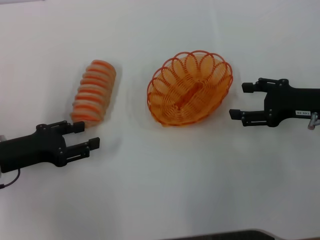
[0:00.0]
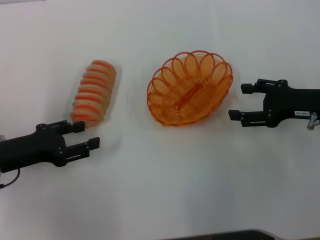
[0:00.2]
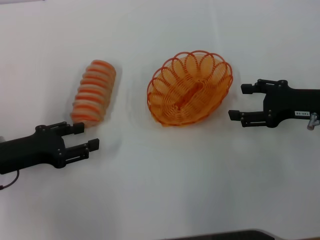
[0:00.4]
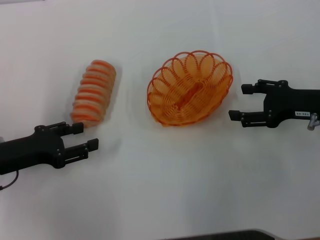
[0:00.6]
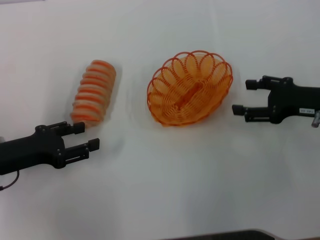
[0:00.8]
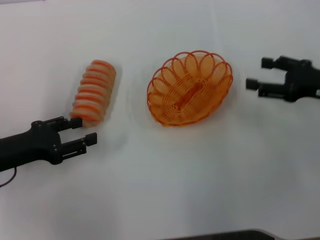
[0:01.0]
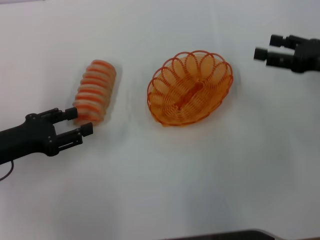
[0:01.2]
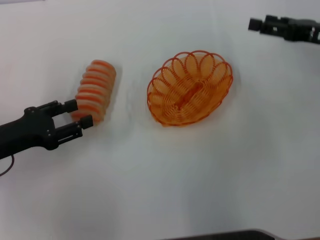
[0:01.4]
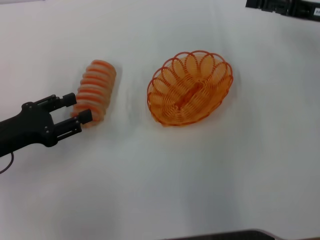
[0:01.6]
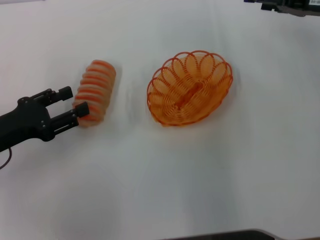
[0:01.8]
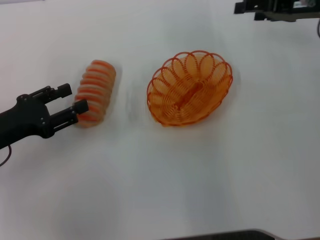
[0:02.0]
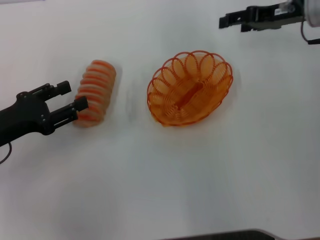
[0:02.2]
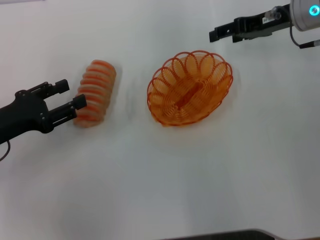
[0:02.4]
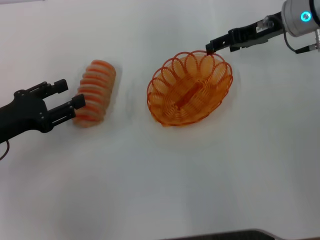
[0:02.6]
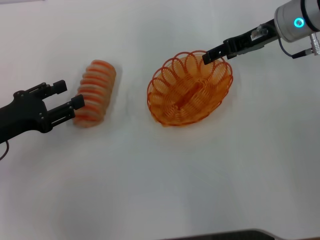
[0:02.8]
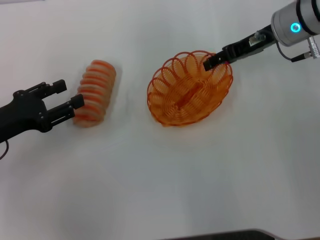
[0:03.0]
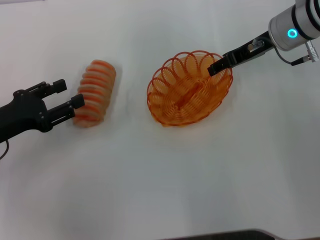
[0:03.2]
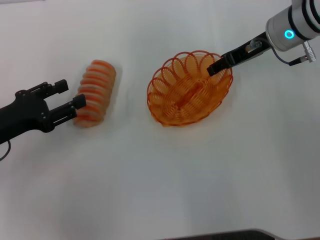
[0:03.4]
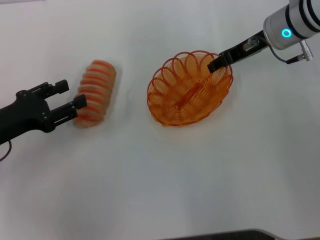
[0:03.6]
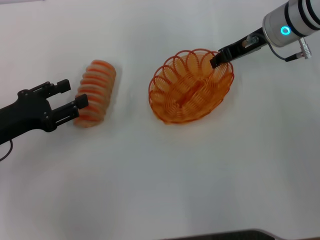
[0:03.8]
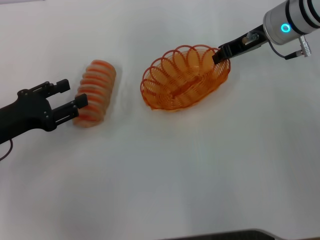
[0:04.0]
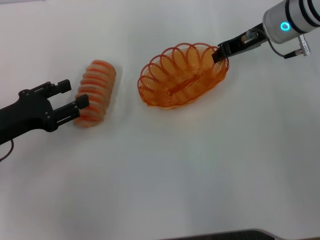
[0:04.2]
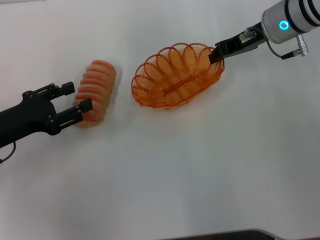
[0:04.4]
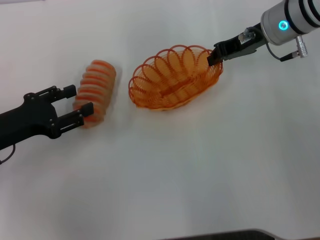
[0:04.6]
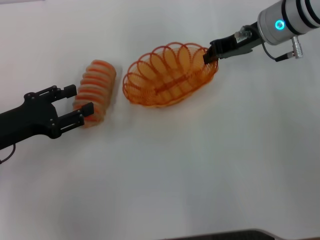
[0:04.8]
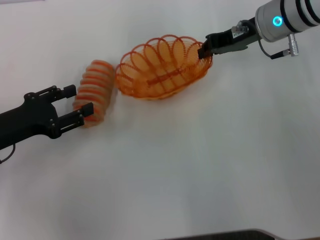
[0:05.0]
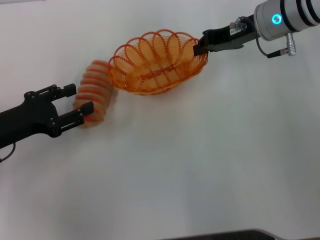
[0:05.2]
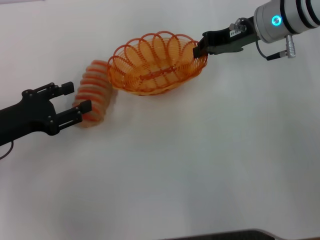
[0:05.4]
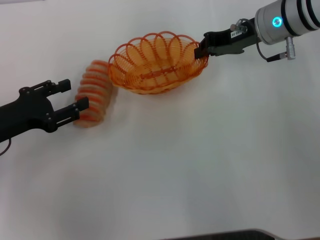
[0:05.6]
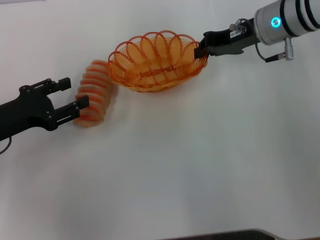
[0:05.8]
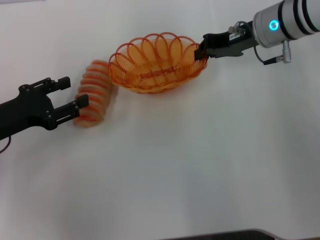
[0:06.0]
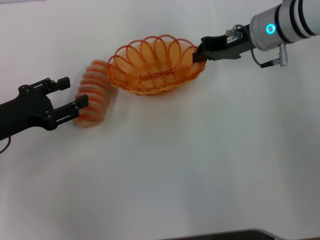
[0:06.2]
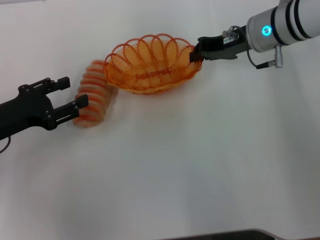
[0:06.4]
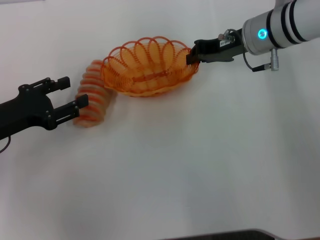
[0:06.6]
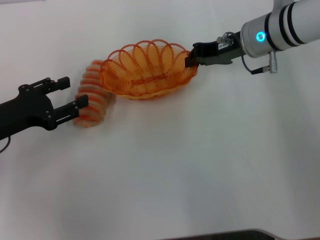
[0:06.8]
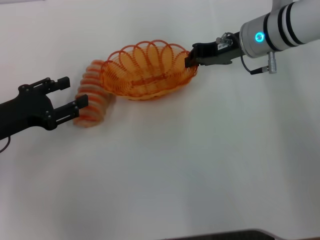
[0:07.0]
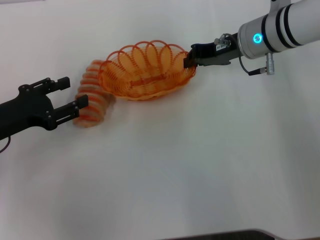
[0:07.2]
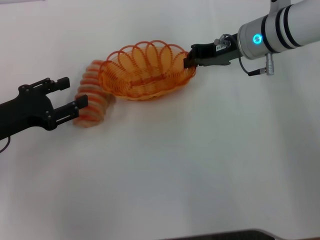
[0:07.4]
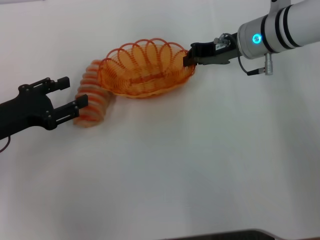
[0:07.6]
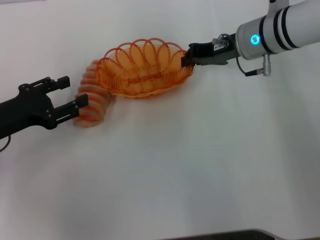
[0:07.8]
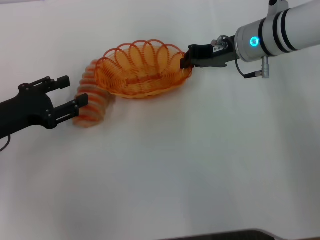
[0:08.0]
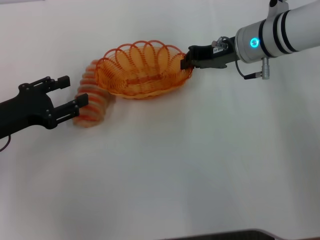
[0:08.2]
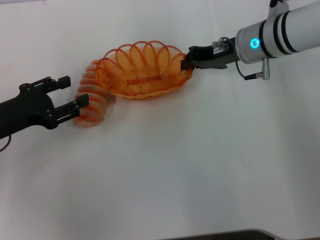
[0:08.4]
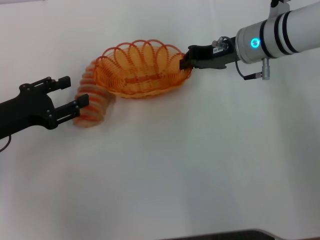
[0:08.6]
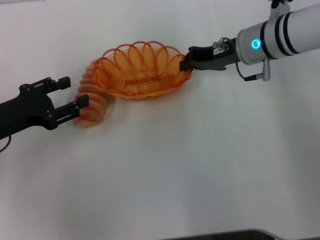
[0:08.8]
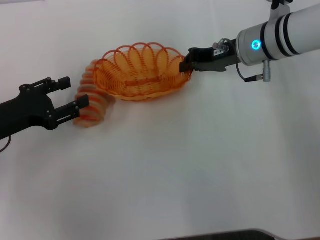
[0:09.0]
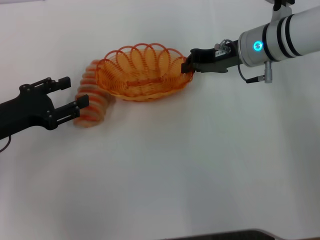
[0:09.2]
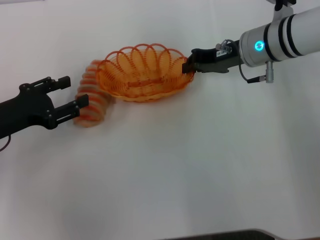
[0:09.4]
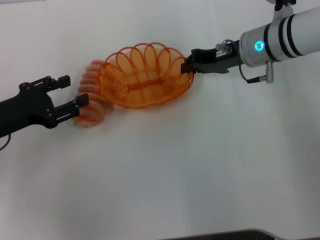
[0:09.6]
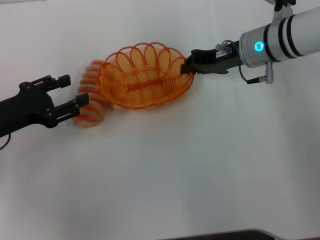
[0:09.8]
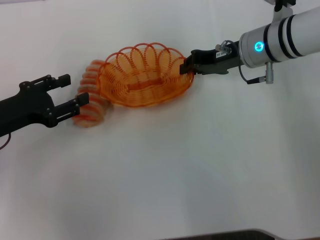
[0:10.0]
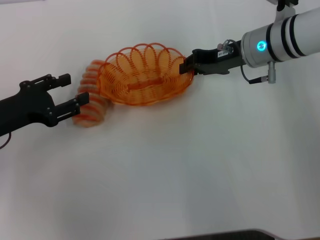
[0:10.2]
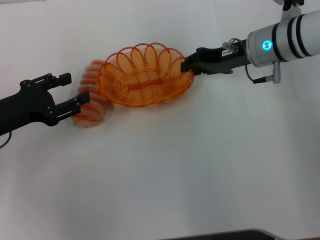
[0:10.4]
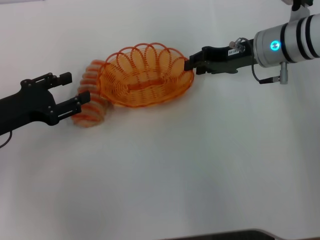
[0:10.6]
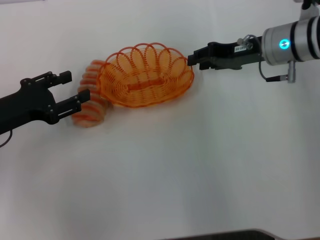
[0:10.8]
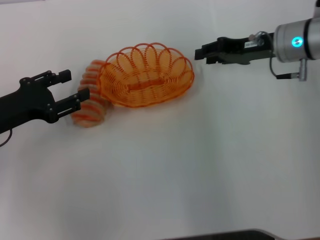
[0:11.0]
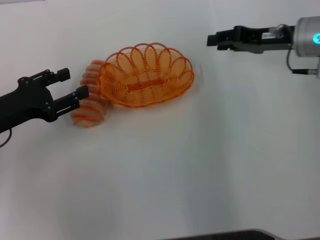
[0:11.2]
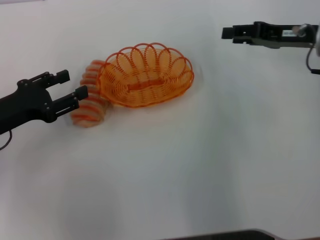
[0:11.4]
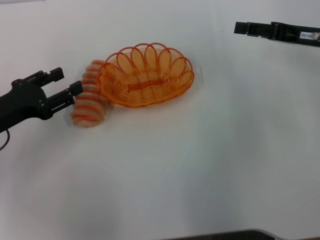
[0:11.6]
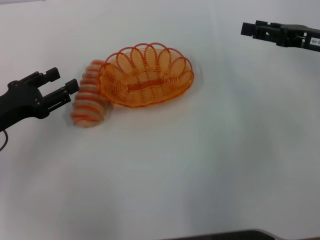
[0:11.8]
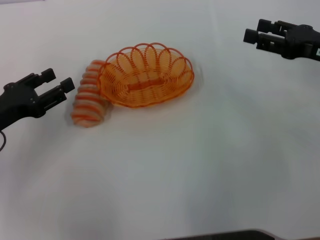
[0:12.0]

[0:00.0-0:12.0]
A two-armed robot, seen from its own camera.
Step, 0:00.0 to 0:04.8: Pick up the basket with the right gripper.
Step, 0:05.0 to 0:11.2: Place the basket in the center of view with the right gripper.
0:00.0 to 0:01.6: The right gripper is displaced forward and upward by about 10 cm.
0:01.6 to 0:03.0: The right gripper travels to the left and forward by roughly 10 cm.
0:03.0 to 0:04.4: The right gripper closes up.
0:04.4 to 0:07.6: The grippers stay close to where they were, moving slightly.
0:07.6 to 0:09.0: The two grippers keep their place.
0:09.0 to 0:10.4: There are only small adjustments of the grippers.
0:10.4 to 0:12.0: The right gripper is displaced to the right and backward by some 15 cm, and opens up.

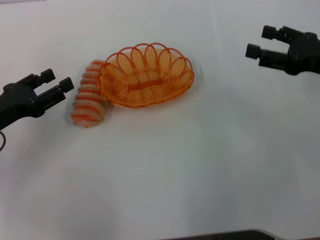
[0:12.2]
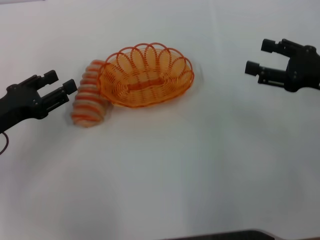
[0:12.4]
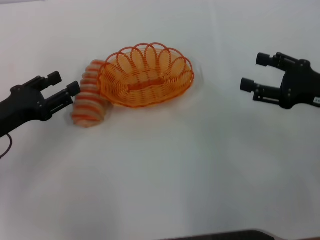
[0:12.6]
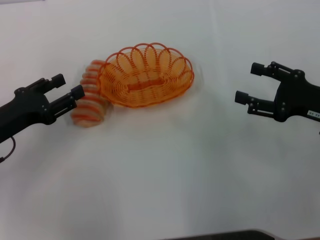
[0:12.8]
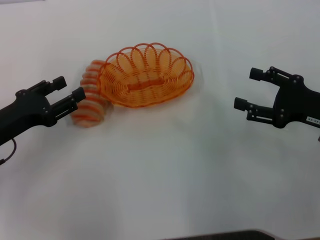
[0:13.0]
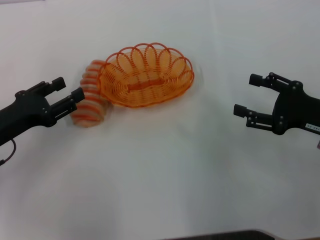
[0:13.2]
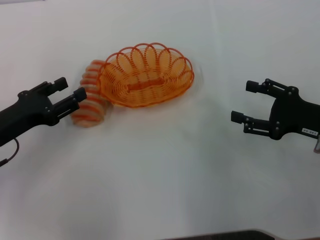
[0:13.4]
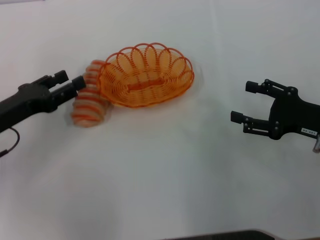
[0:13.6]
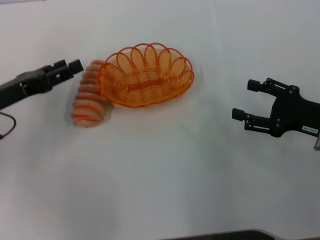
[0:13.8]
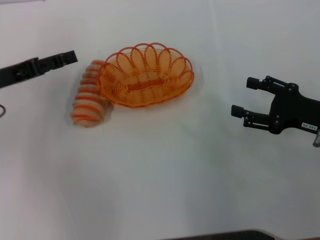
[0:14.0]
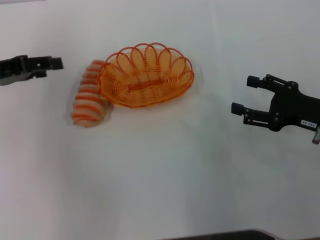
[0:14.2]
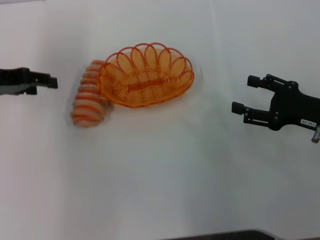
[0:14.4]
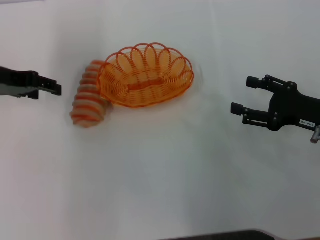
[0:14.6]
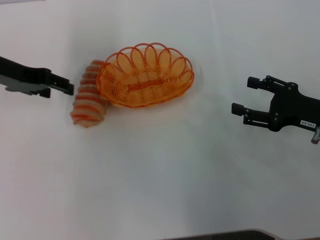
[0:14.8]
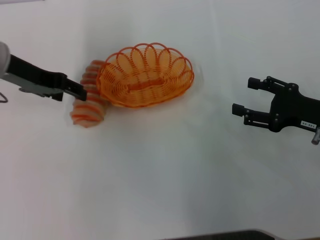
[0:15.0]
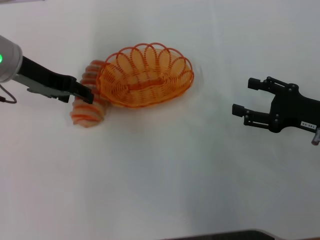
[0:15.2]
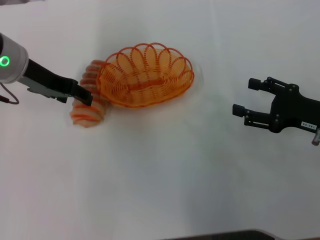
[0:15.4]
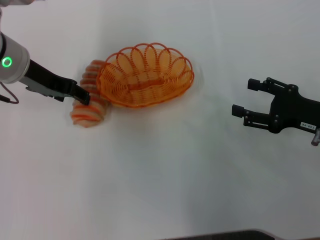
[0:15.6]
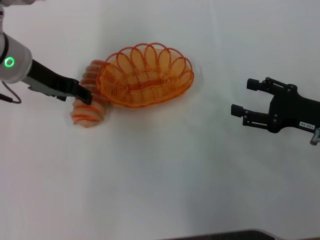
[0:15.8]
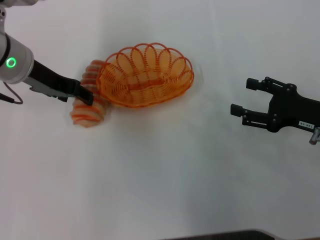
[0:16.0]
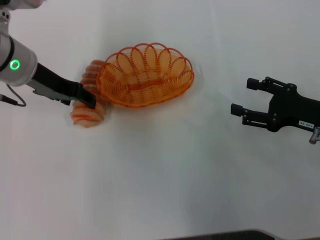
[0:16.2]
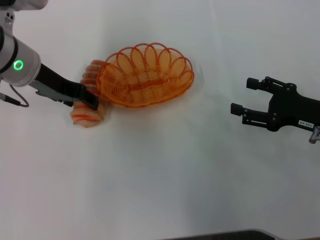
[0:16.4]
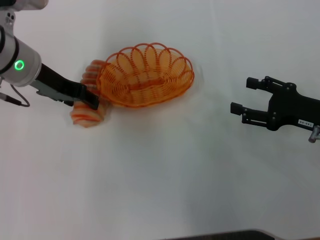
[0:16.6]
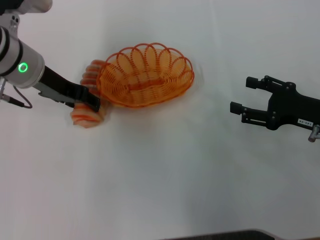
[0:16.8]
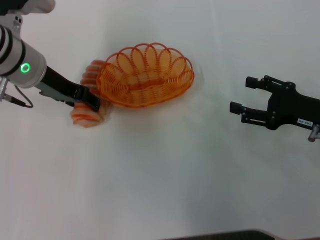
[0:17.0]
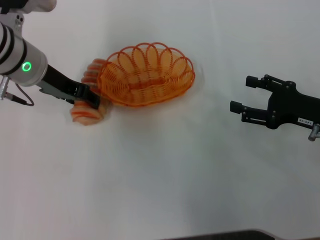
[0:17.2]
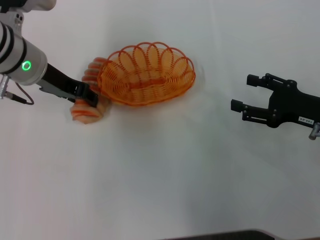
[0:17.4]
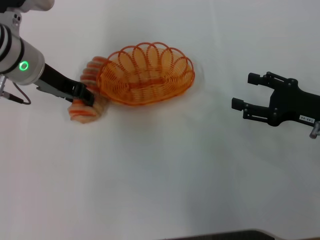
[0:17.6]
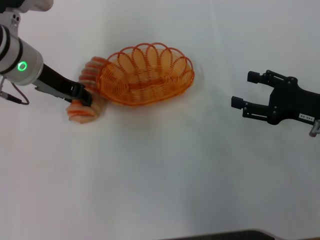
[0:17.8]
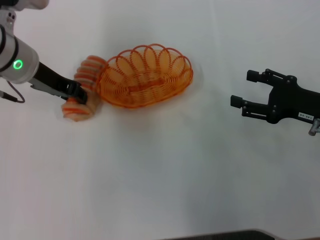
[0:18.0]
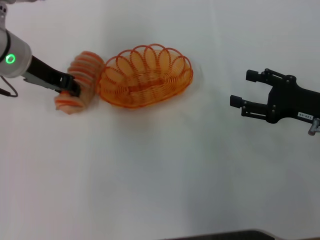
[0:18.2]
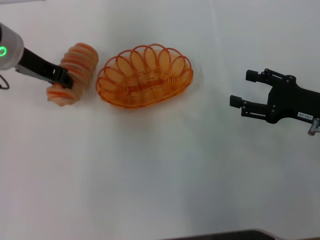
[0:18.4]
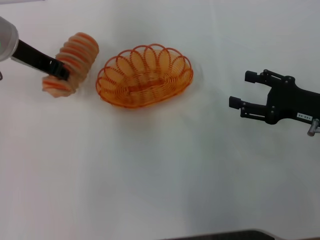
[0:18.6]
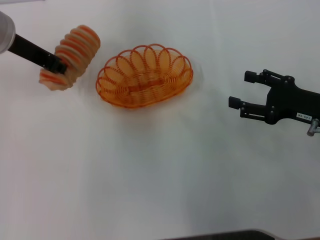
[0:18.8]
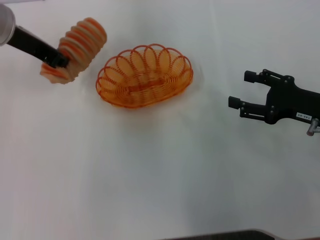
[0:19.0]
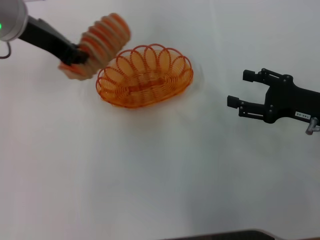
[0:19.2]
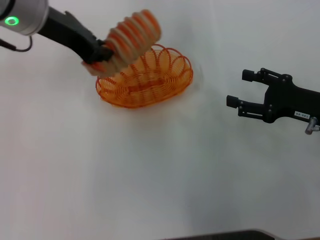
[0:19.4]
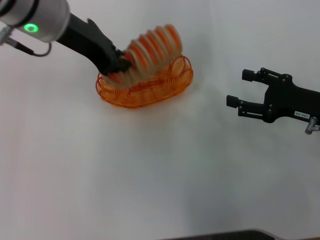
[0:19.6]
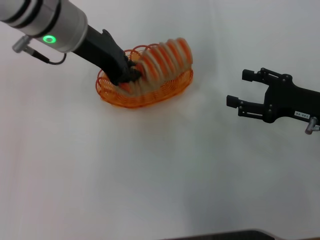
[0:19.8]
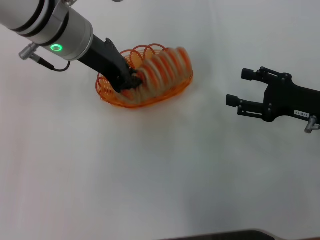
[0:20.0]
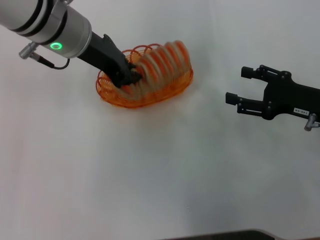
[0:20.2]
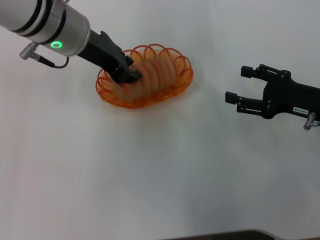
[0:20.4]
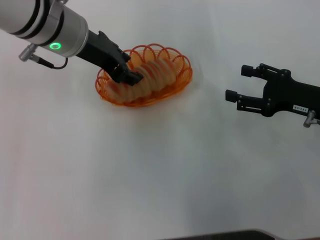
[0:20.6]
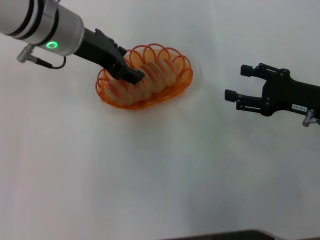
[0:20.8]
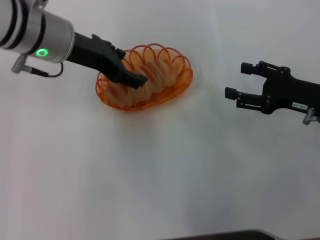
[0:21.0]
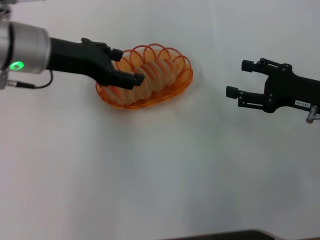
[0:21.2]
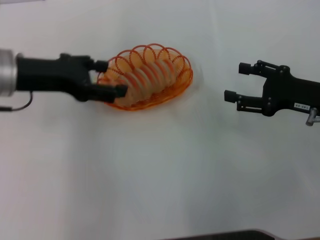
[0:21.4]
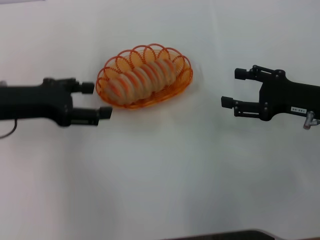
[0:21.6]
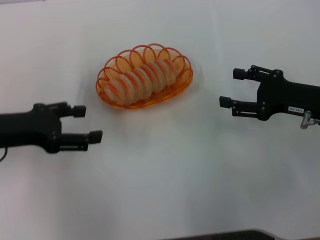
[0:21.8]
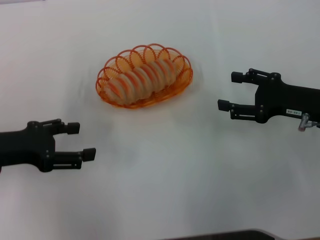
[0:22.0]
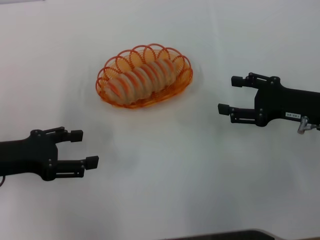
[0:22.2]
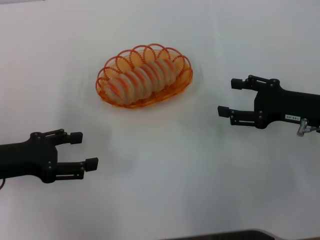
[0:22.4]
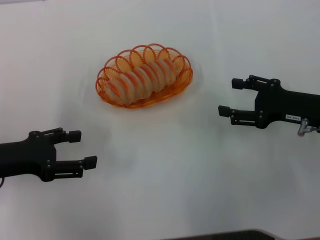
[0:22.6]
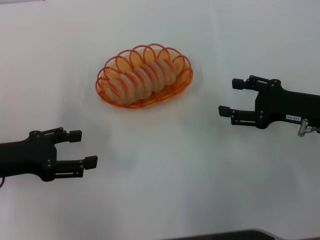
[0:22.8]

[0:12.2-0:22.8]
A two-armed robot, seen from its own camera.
Step, 0:12.2 to 0:18.4: Pick up the long bread with the left gripper.
Step, 0:18.6 to 0:21.4: Place the long bread into the basket with the left gripper.
0:12.2 to 0:13.8: The right gripper travels downward by approximately 5 cm.
0:13.8 to 0:15.2: The left gripper moves upward, forward and to the right, about 15 cm.
0:15.2 to 0:16.8: There are only small adjustments of the grippers.
0:16.8 to 0:18.2: The left gripper closes up.
0:18.2 to 0:19.8: The left gripper heads to the right and upward, covering roughly 10 cm.
0:19.8 to 0:21.2: The left gripper is displaced to the left by roughly 5 cm, and opens.
0:21.2 to 0:22.8: The left gripper heads backward, to the left and downward, covering about 15 cm.
